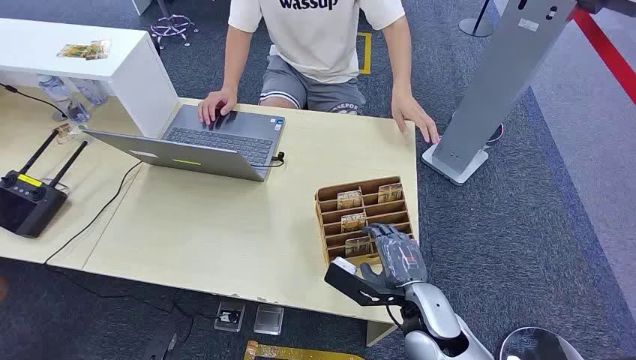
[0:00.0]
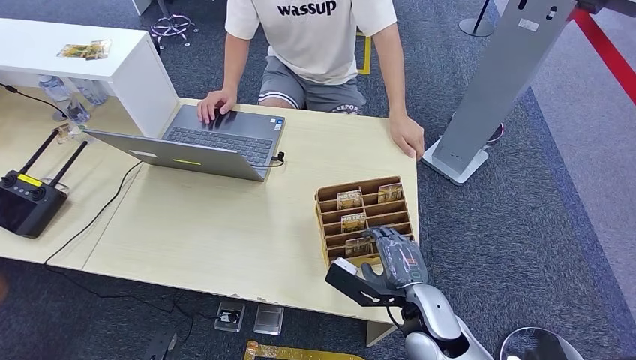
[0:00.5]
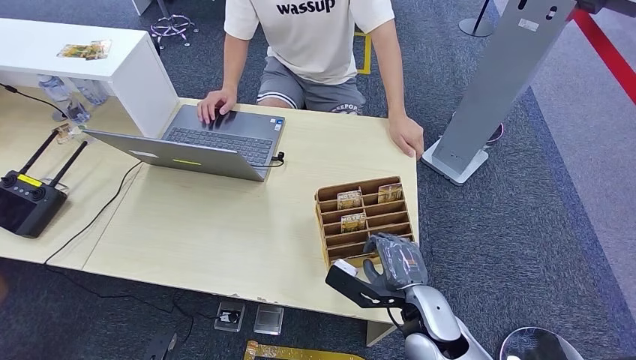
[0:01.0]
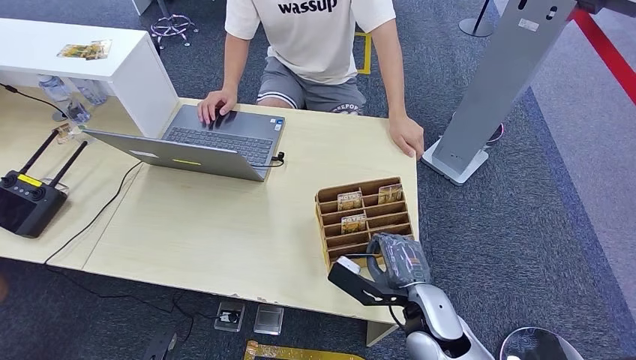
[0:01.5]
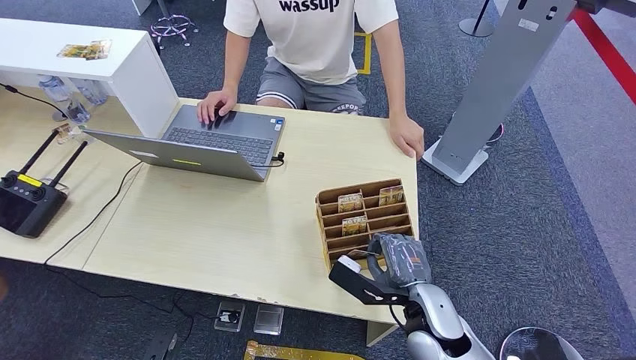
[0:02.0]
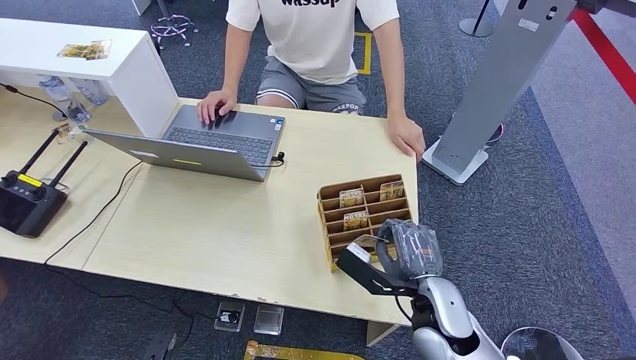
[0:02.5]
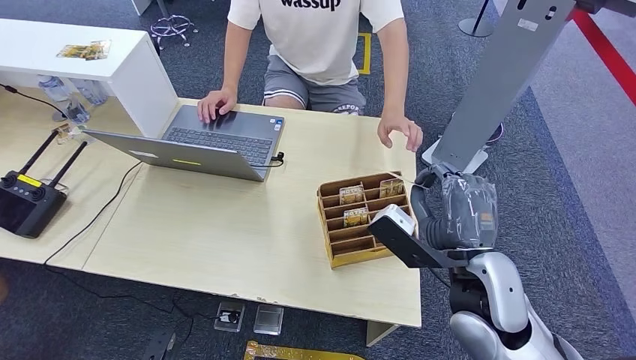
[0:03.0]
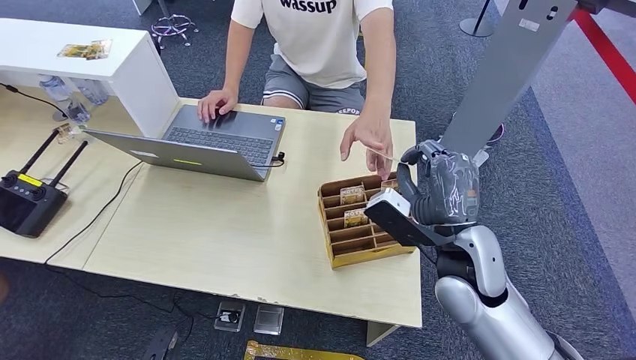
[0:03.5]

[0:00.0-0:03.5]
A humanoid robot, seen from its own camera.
Step, 0:00.0 to 0:02.5: Pick up the key card from the card box.
Step, 0:03.0 to 0:03.5: Hand the key card to the target.
0:02.0 to 0:03.5: The right hand shifts some 15 cm upward and forward.

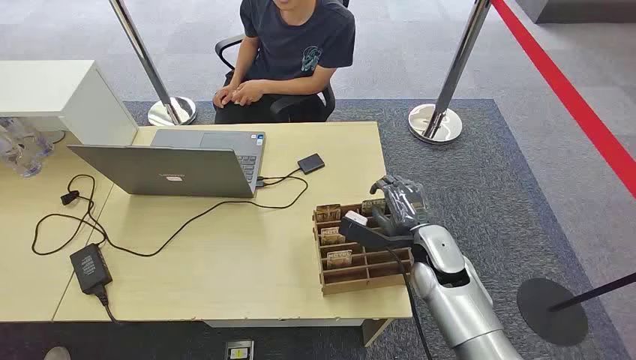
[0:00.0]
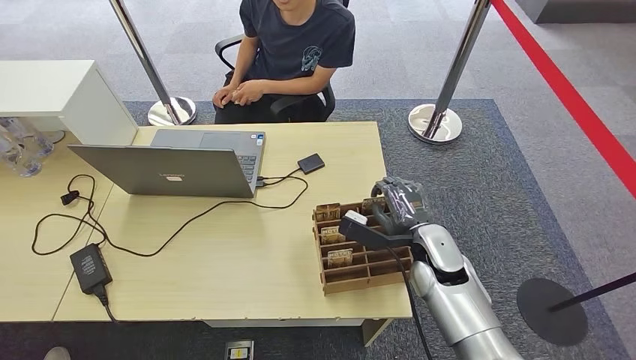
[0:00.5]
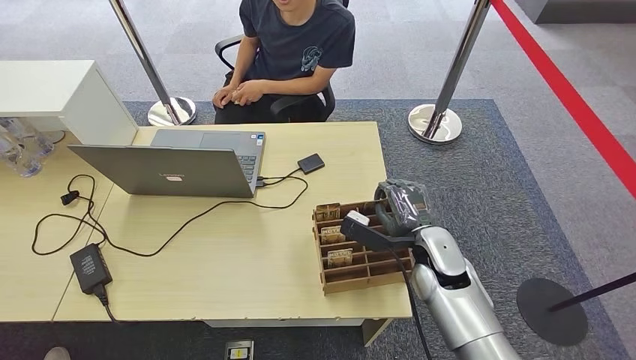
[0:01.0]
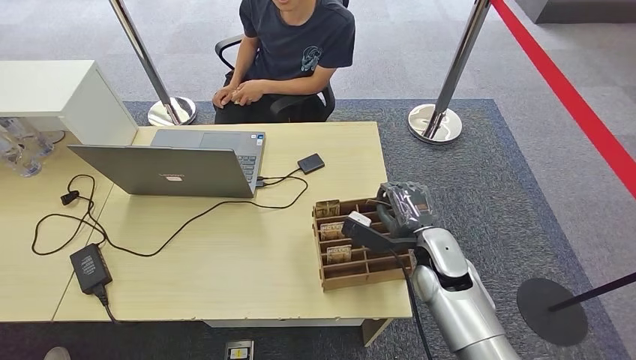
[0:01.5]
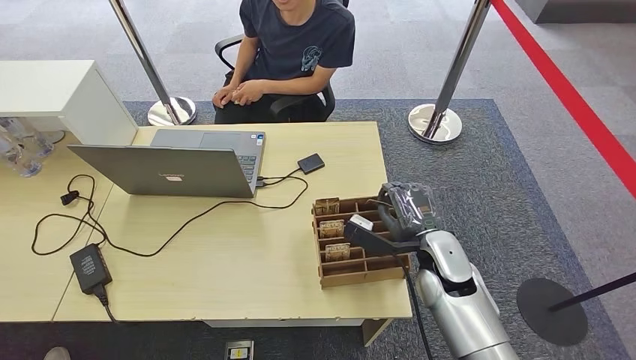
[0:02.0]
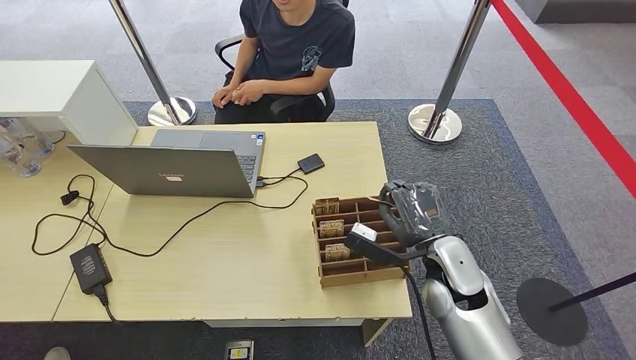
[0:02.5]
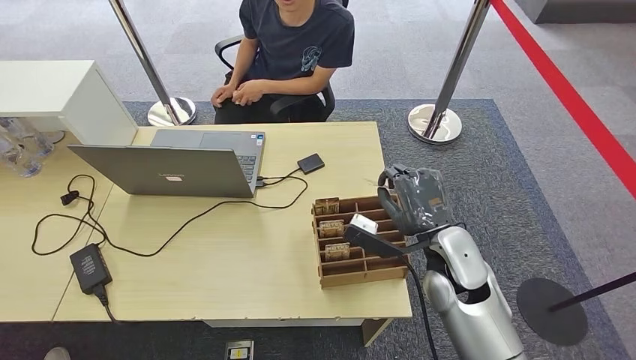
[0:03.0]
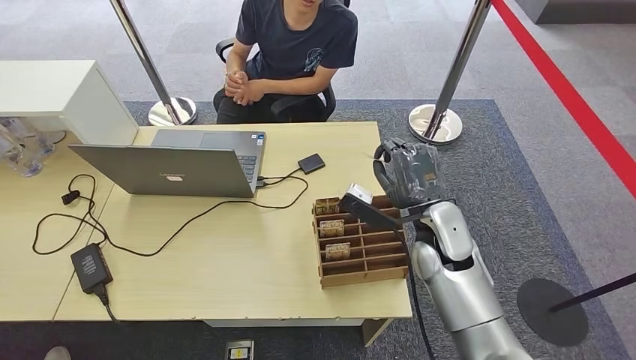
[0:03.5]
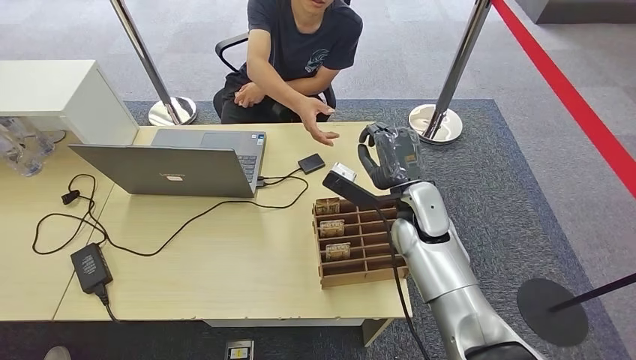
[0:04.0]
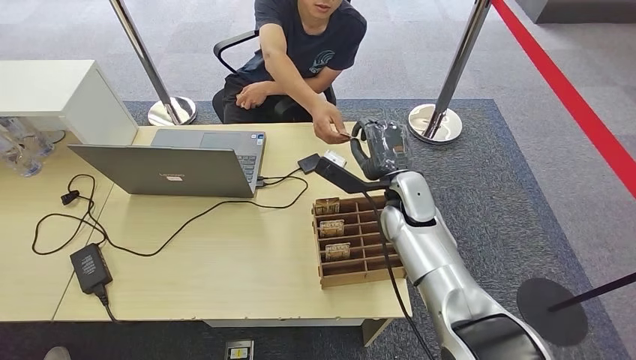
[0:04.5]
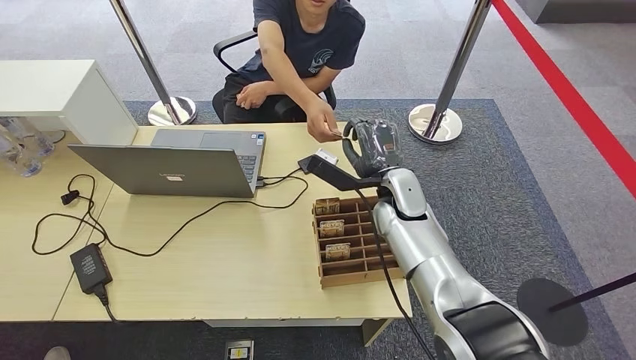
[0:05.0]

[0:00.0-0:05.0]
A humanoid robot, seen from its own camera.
Step, 0:00.0 to 0:03.5: Pick up the key card from the card box.
Step, 0:04.0 to 0:05.0: Hand the key card to the target.
0:02.5 to 0:05.0: The right hand heads forward and to the left, covering roughly 15 cm.
